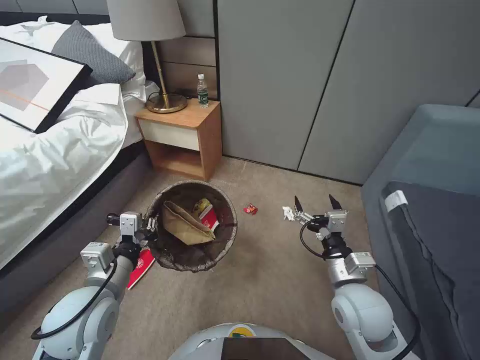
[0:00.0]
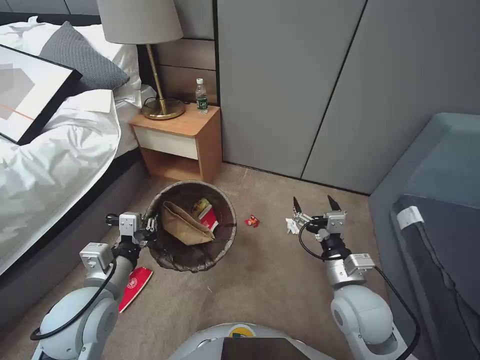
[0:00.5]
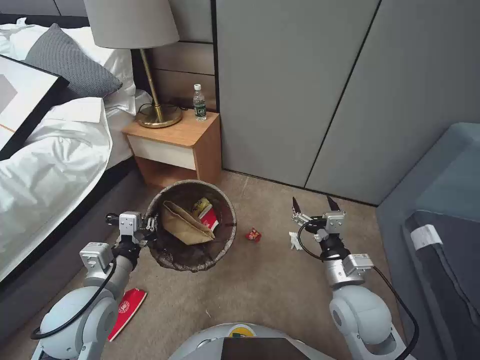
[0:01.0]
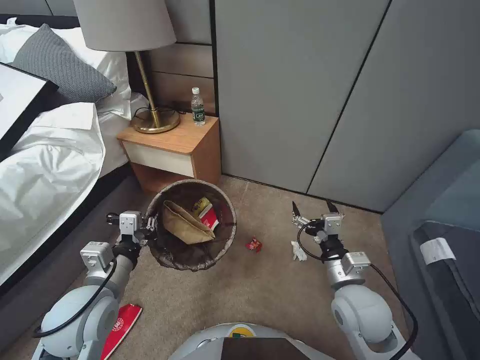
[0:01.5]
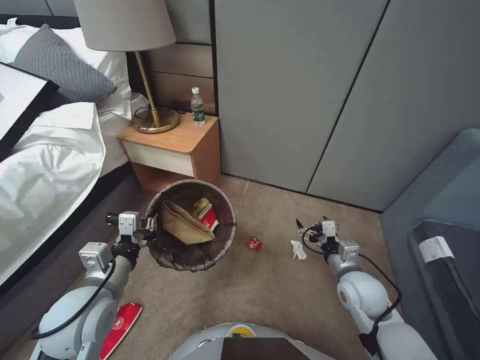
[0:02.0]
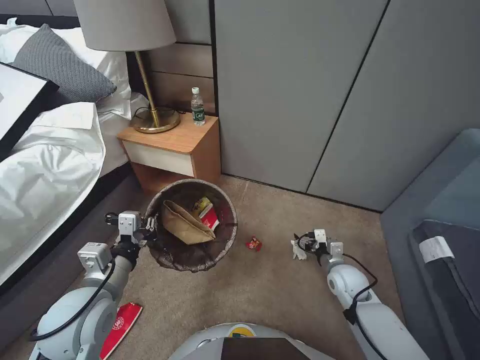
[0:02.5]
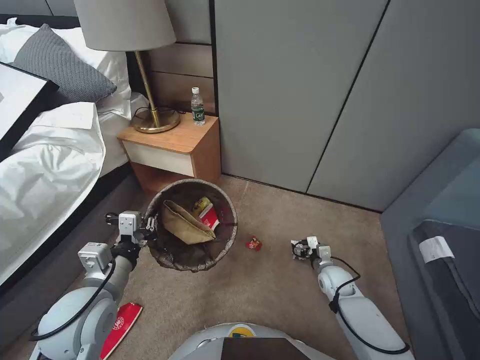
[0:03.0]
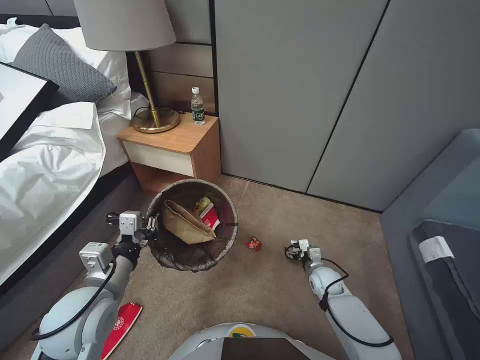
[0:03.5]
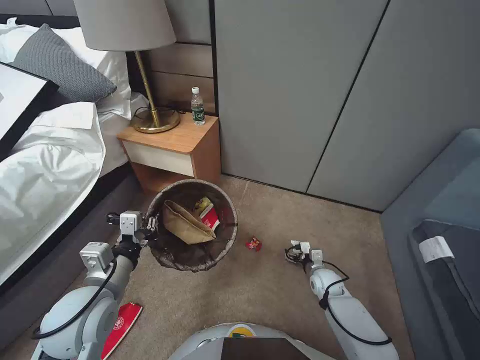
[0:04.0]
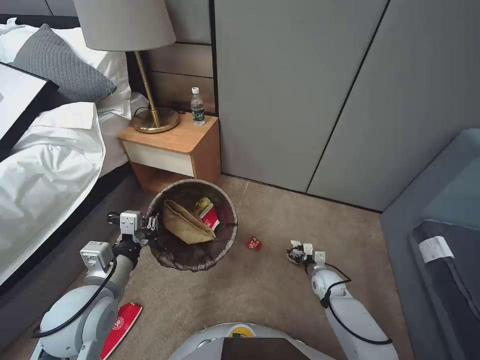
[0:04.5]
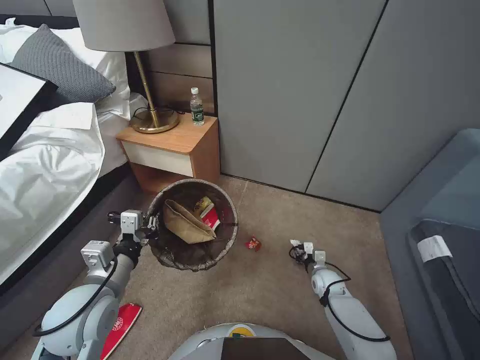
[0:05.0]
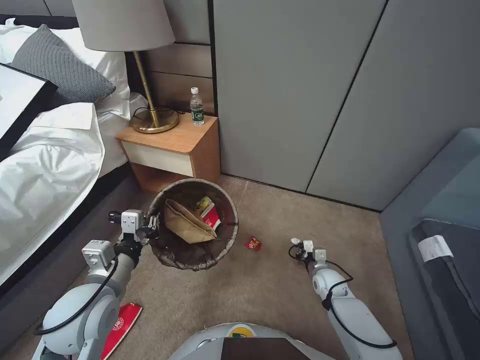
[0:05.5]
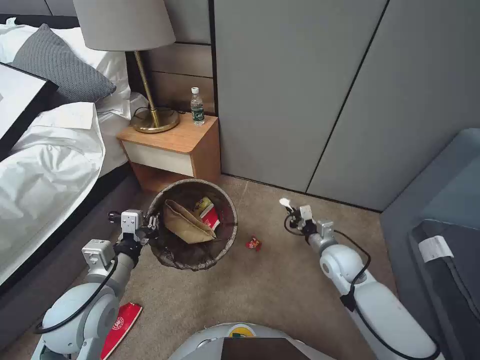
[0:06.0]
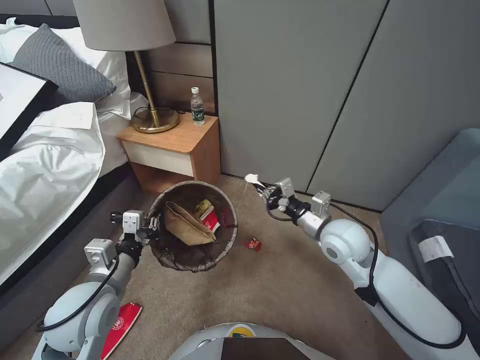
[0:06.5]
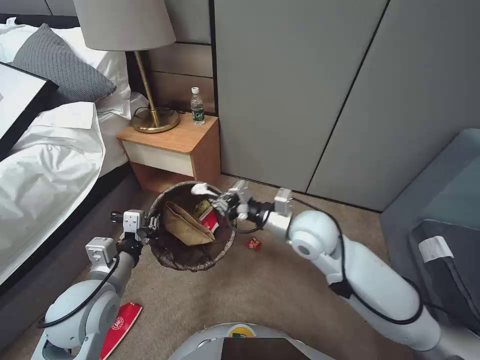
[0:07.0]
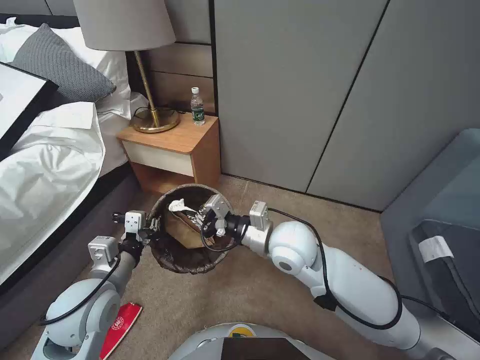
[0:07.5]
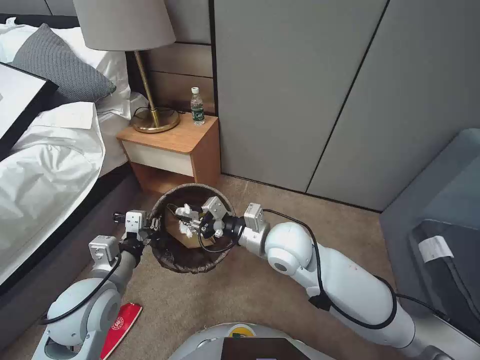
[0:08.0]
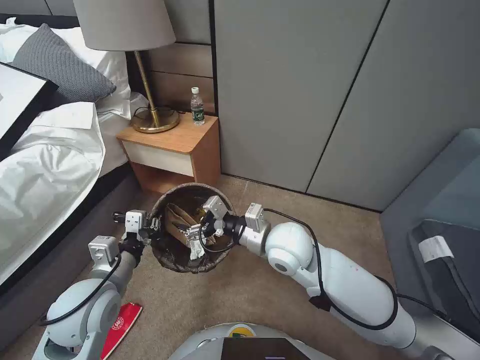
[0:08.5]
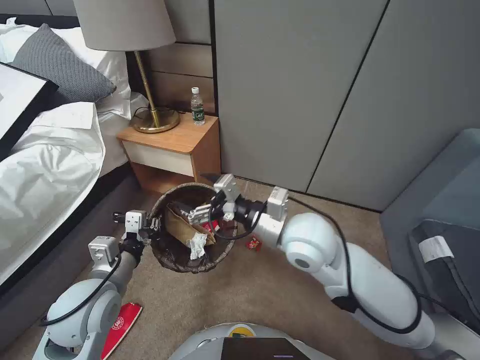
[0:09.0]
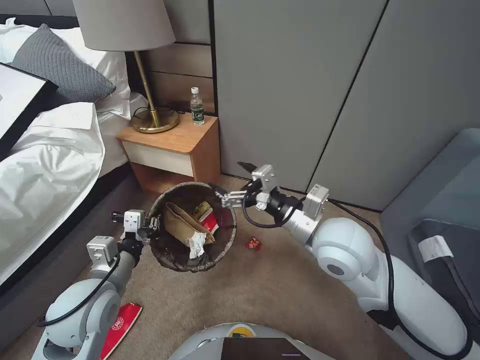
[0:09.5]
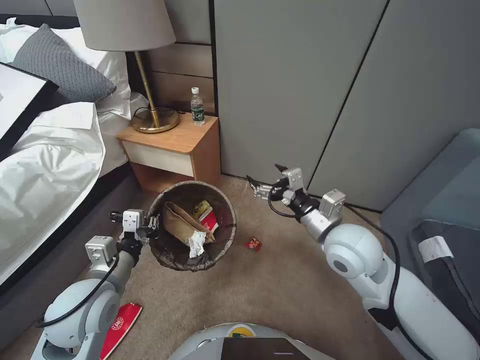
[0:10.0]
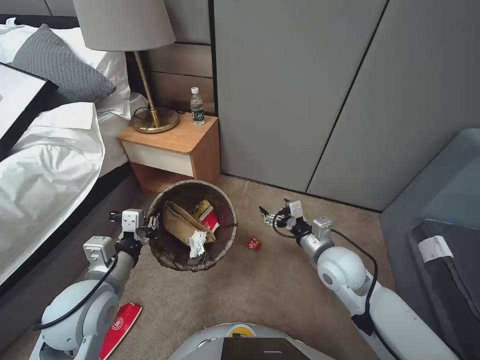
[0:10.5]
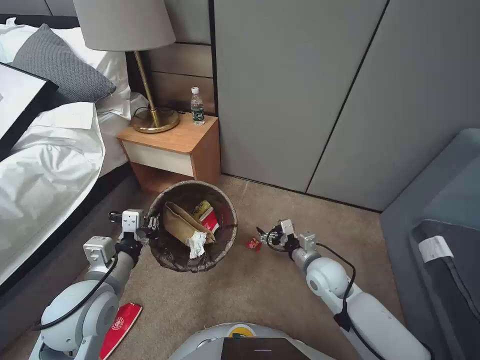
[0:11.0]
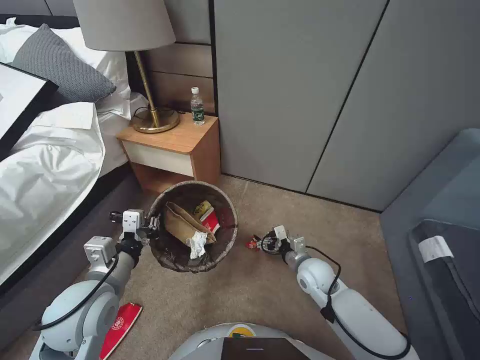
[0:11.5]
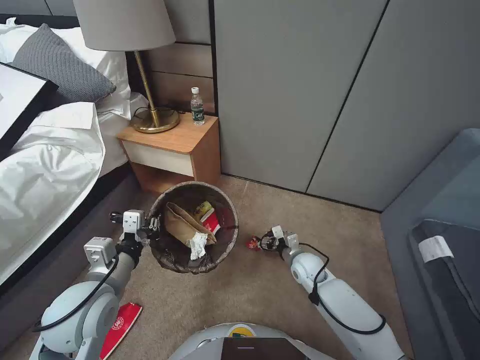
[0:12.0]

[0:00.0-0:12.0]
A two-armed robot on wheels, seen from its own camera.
Task of the whole recording: Pick up the trash bin, then pick up the garbage from the floor and place it into the trash bin.
0.0 to 2.0 s: The right gripper moves downward and to the right, approximately 10 cm.
2.0 to 4.0 s: The right gripper is displaced downward and forward by approximately 20 cm.
4.0 to 6.0 s: The right gripper travels upward by about 15 cm, and closes.
6.0 to 8.0 s: The right gripper travels to the left and upward by some 25 cm.
8.0 to 10.0 s: The right gripper moves to the right, some 10 cm, and opens.
10.0 to 12.0 s: The right gripper travels downward by some 30 cm.

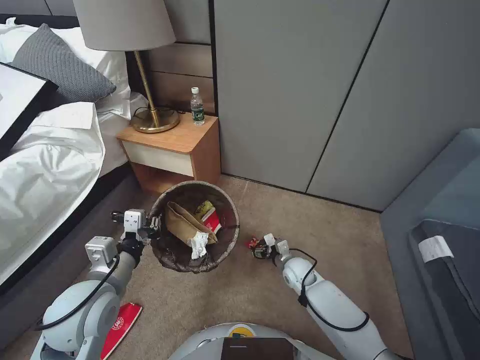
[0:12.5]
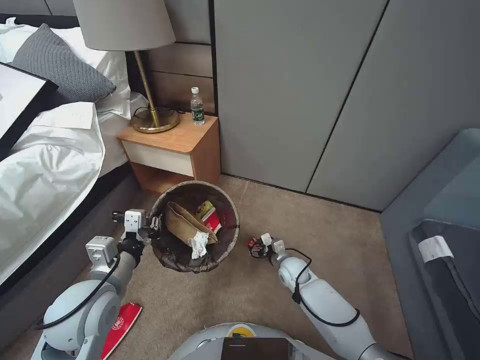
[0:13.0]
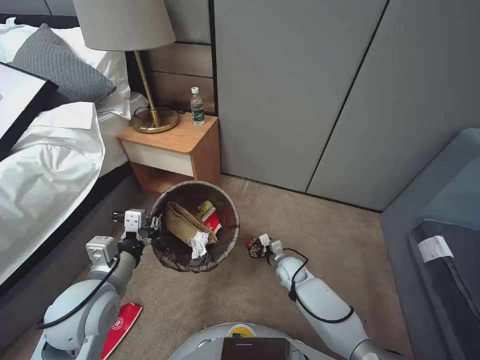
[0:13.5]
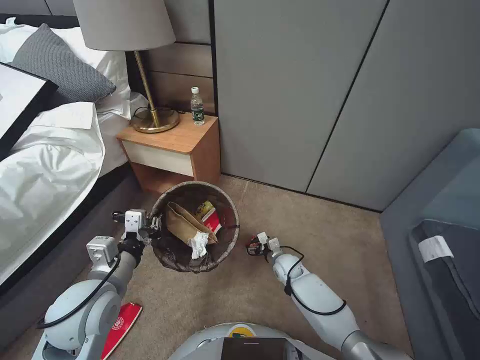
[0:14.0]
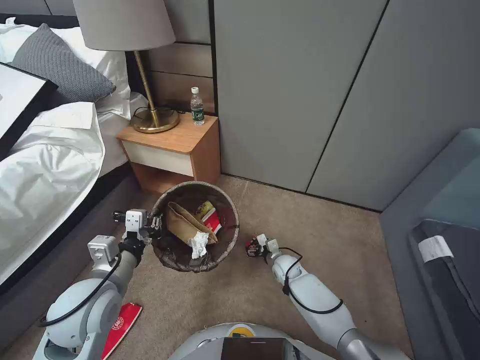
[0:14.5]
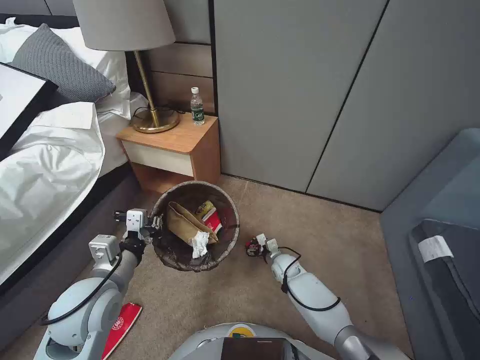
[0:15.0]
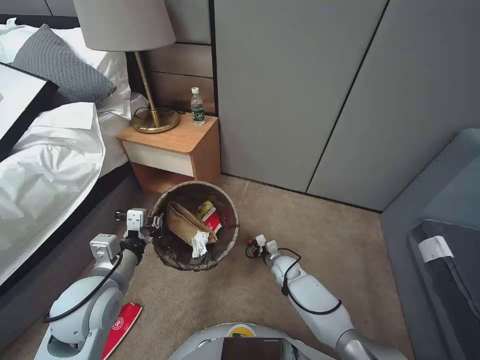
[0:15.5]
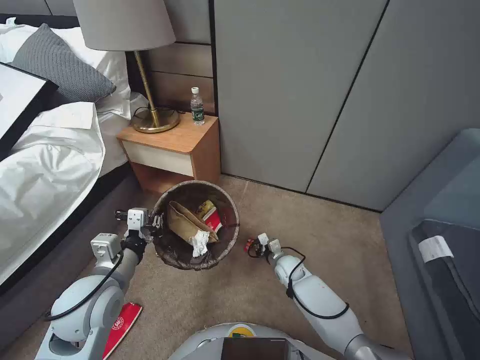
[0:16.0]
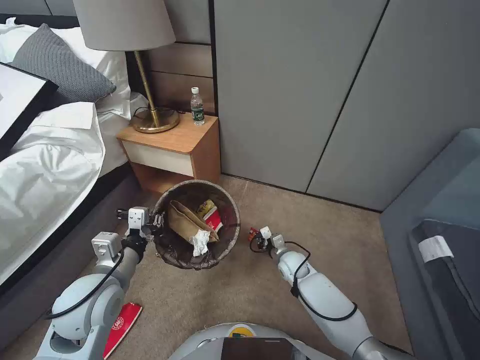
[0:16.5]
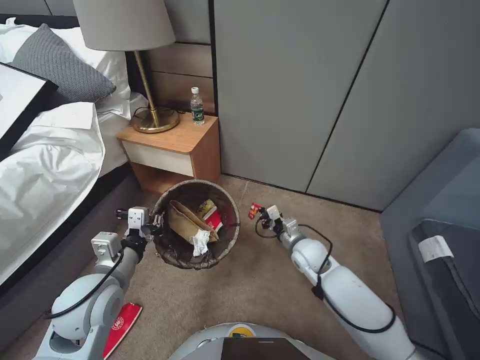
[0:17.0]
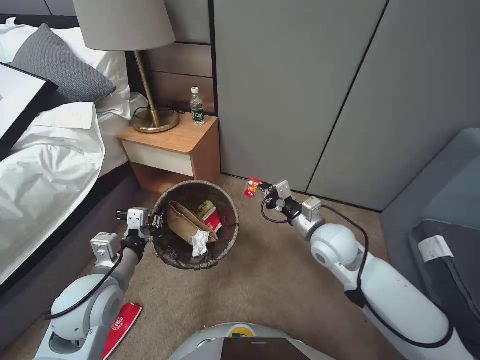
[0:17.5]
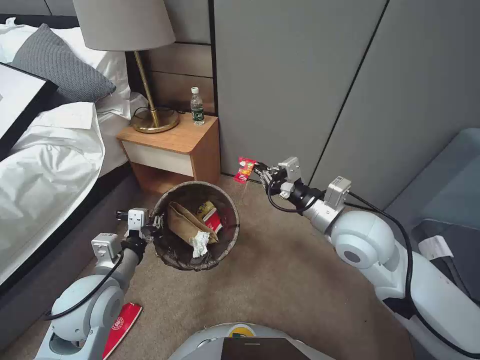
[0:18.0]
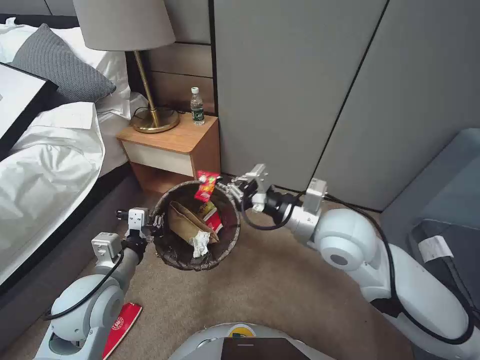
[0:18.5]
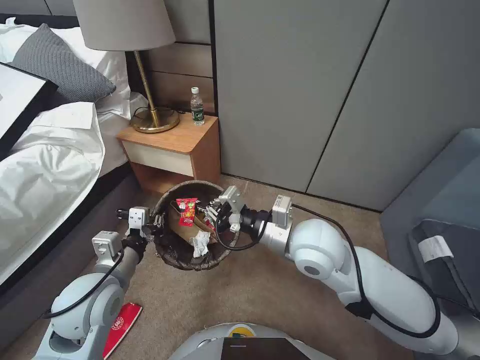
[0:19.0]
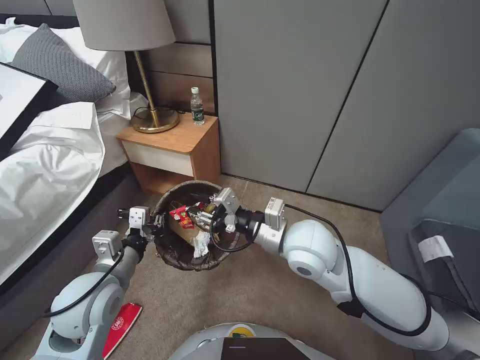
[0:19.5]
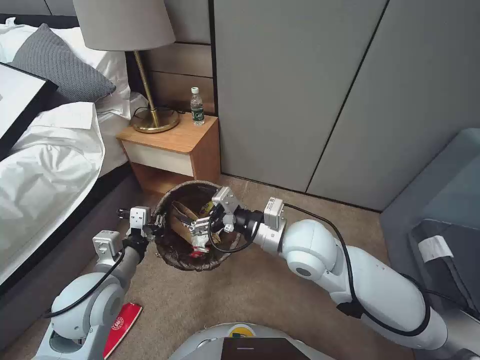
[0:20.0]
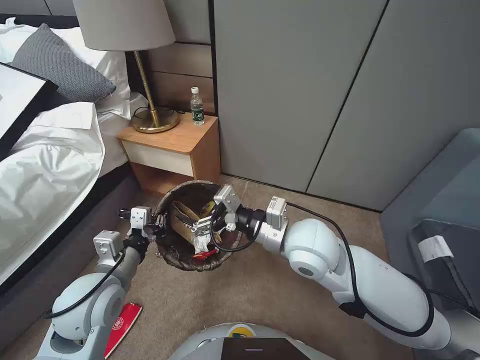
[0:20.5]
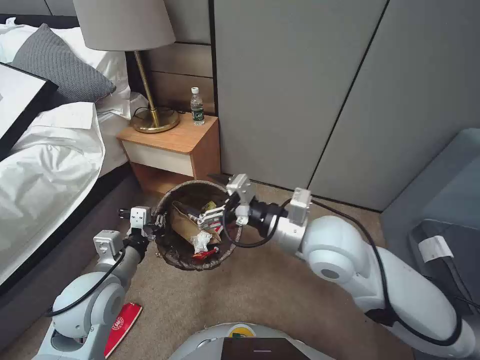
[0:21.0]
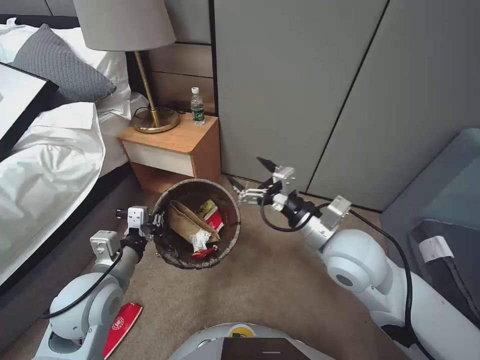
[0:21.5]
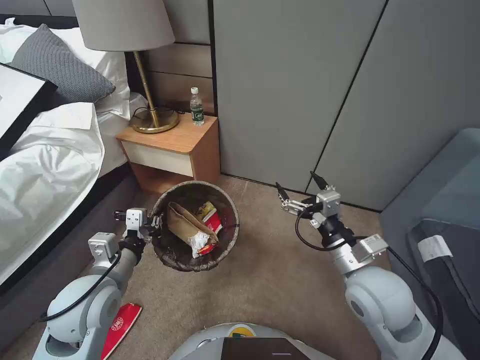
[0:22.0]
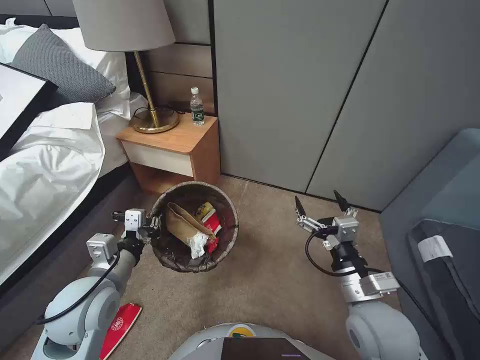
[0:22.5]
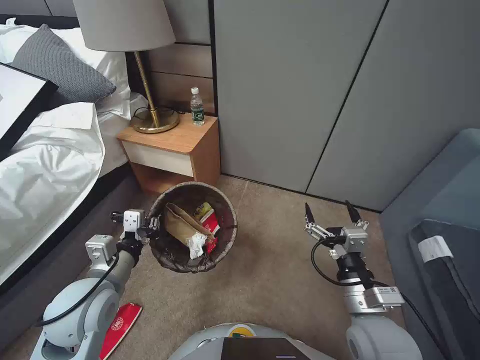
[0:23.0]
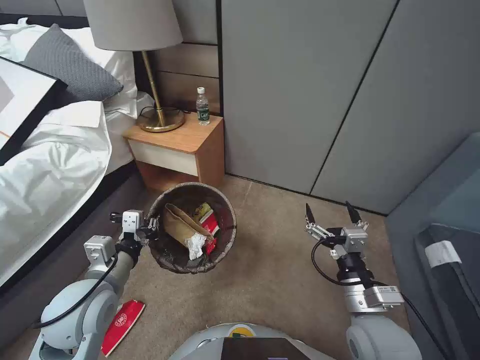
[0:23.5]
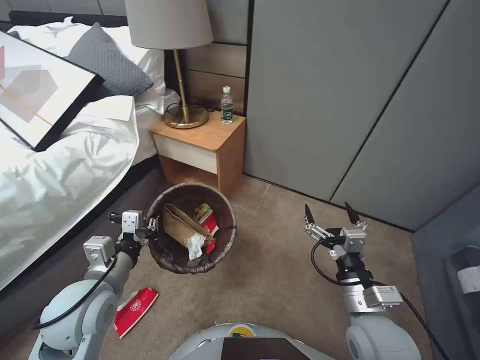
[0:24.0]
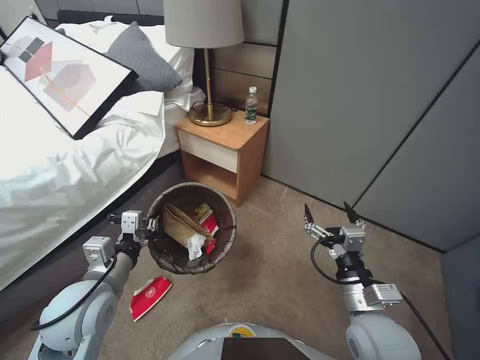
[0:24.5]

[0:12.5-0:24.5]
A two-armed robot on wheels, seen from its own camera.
Task of the whole recording: Pick up the trash bin, then pick up the garbage from the floor and place it into the trash bin.
12.5 to 14.5 s: The right gripper changes place by approximately 5 cm.
14.5 to 16.5 s: The right gripper closes its fingers.
16.5 to 18.5 s: The right gripper travels upward by approximately 40 cm.
18.5 to 20.5 s: The right gripper goes approximately 5 cm to the left, and opens its fingers.
20.5 to 22.5 s: The right gripper travels to the right, backward and downward by roughly 20 cm.

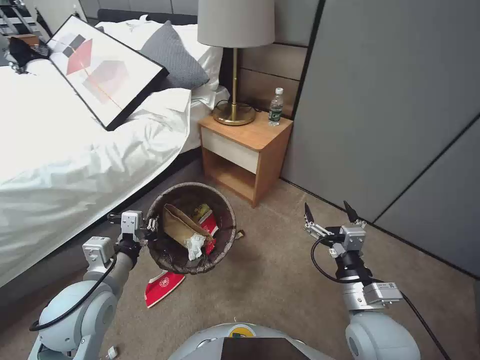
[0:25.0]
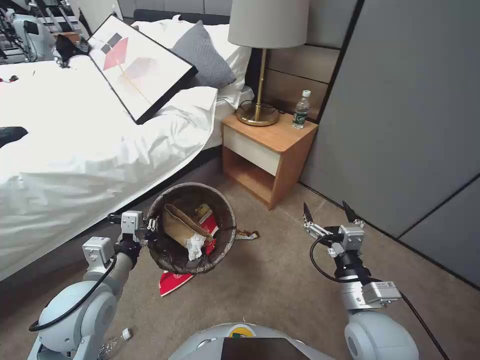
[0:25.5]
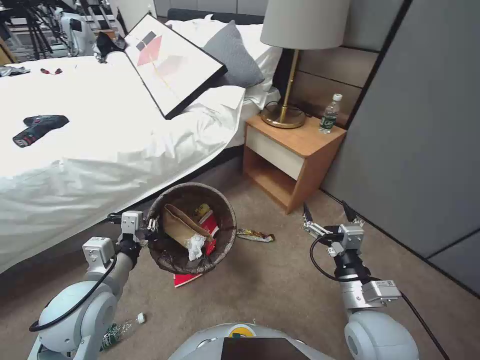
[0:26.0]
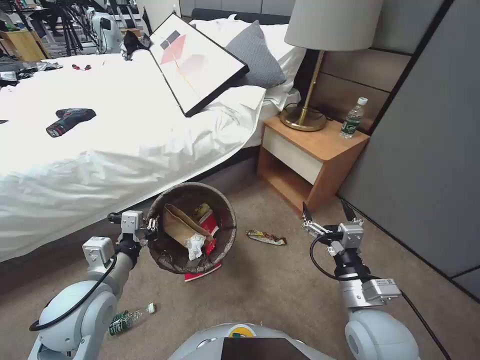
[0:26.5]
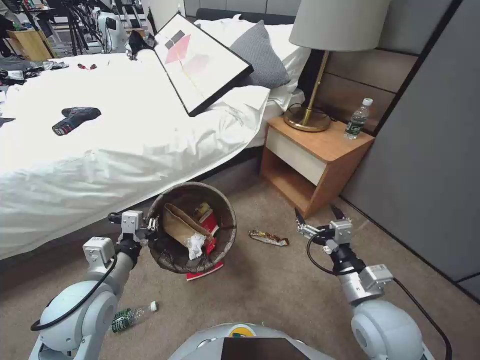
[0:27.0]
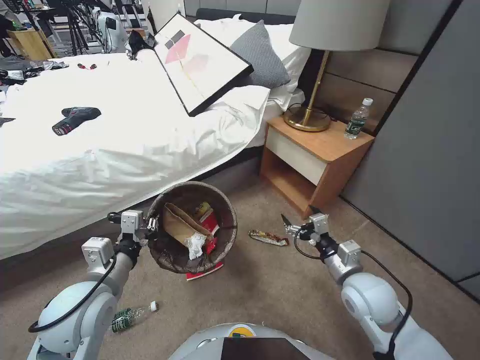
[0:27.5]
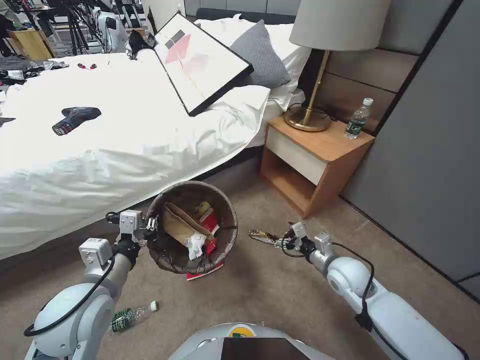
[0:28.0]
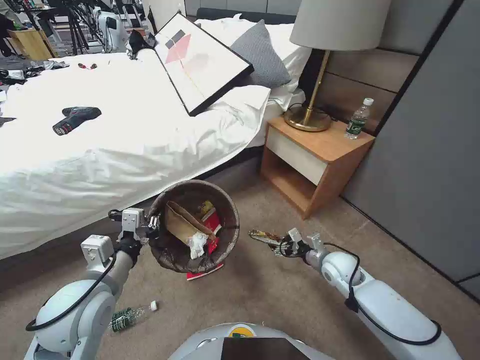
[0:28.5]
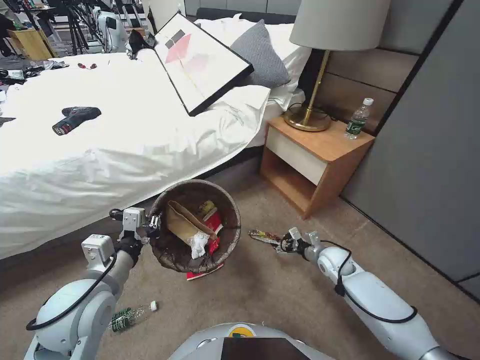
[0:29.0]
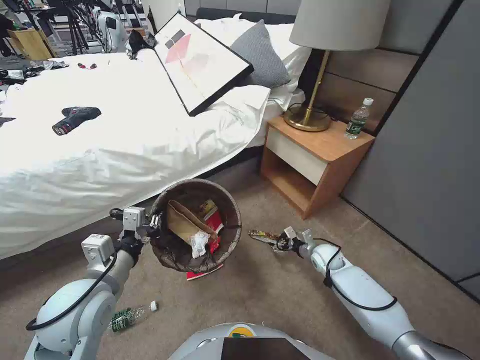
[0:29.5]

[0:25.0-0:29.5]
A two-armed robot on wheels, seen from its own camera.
Task of the whole recording: Pick up the trash bin, then pick up the garbage from the floor and place it into the trash bin.
27.0 to 29.5 s: The right gripper goes about 30 cm downward and forward.
